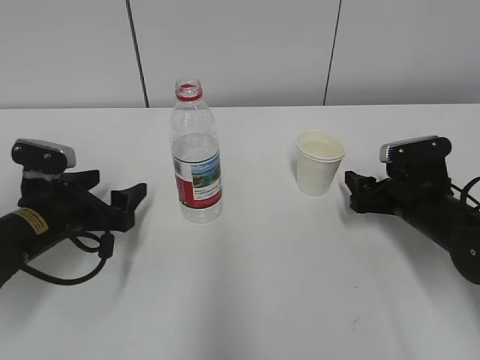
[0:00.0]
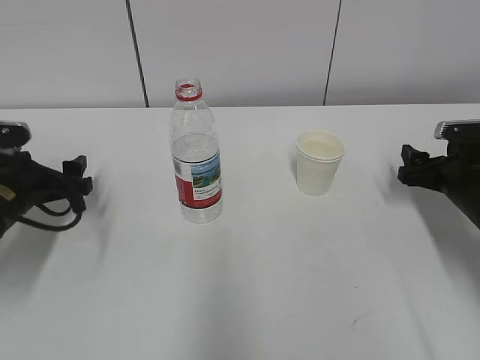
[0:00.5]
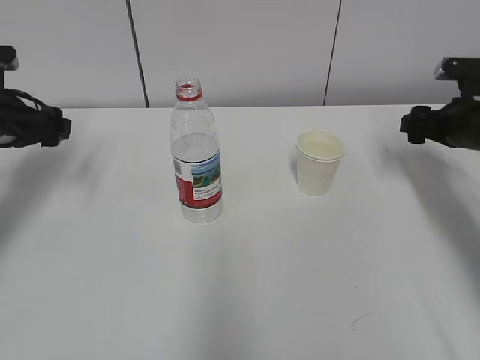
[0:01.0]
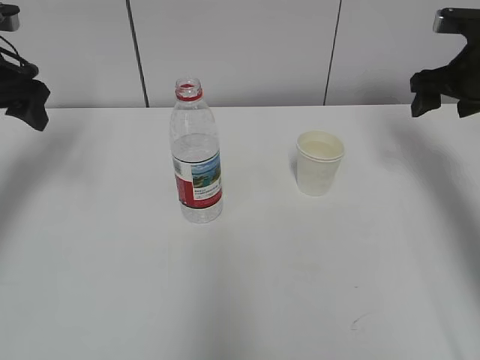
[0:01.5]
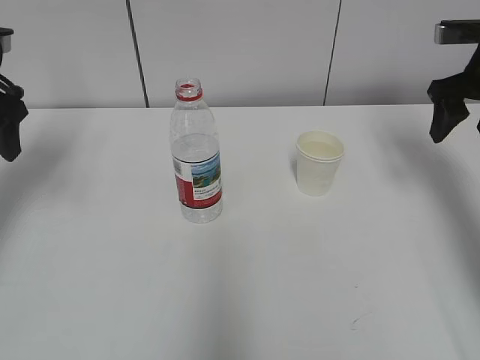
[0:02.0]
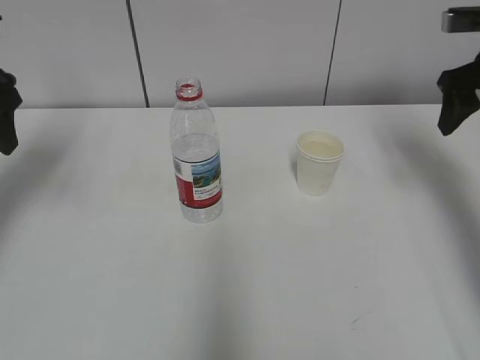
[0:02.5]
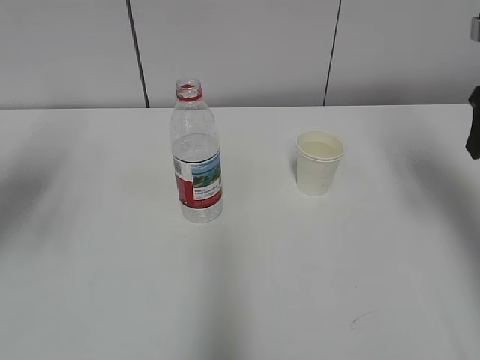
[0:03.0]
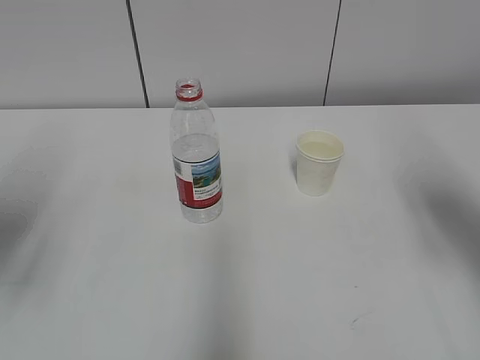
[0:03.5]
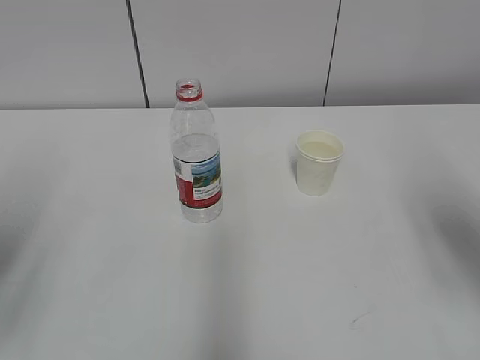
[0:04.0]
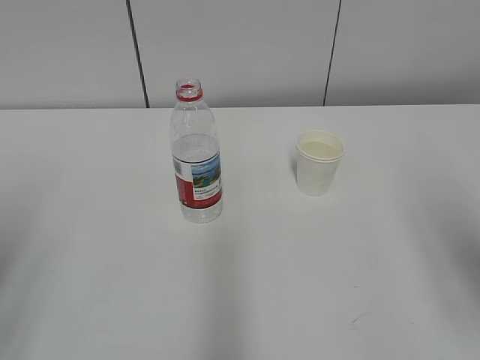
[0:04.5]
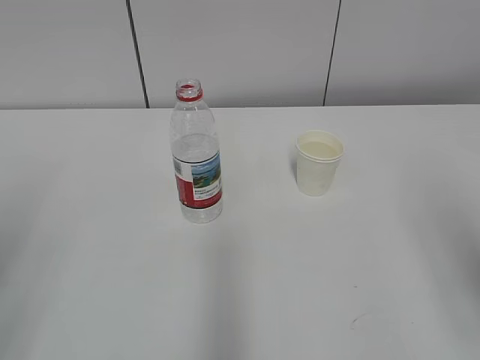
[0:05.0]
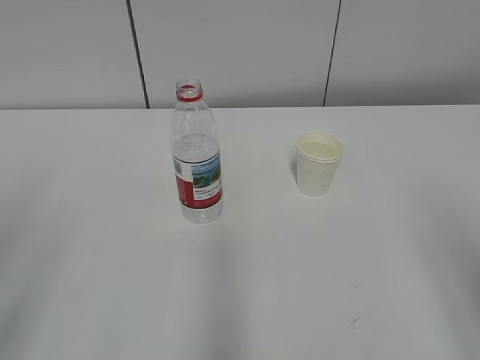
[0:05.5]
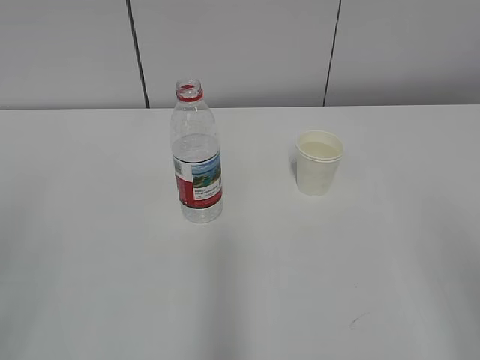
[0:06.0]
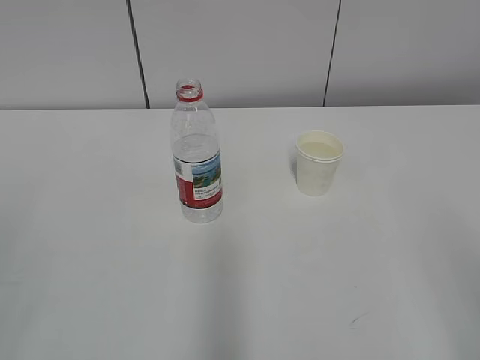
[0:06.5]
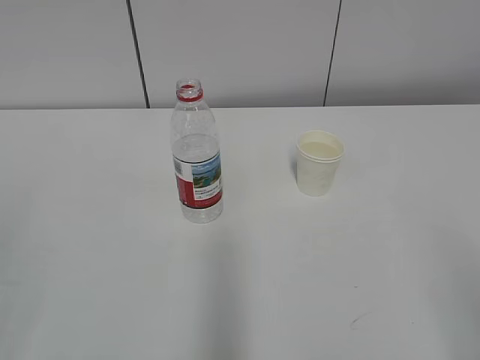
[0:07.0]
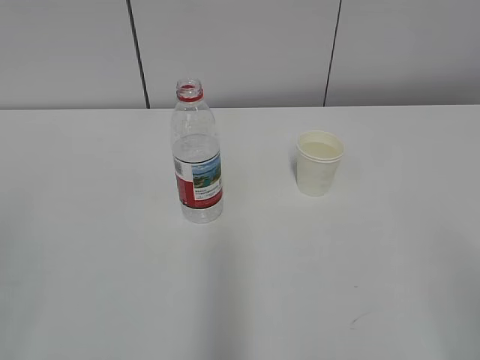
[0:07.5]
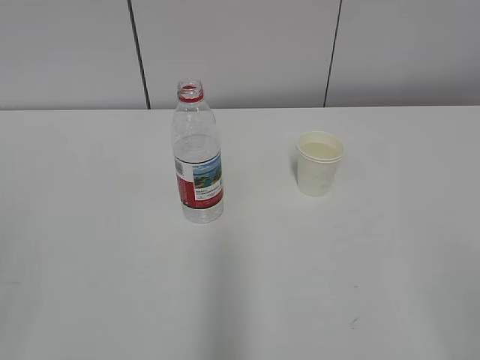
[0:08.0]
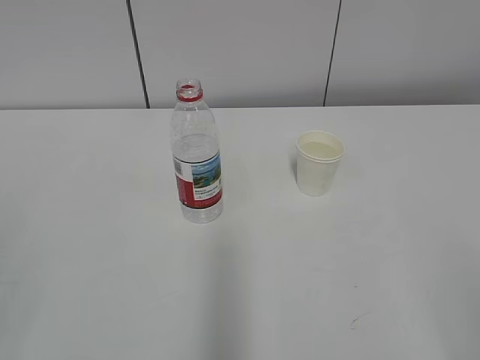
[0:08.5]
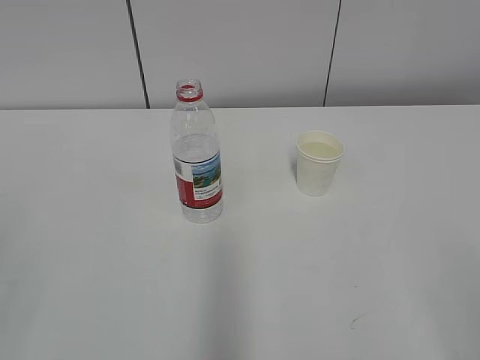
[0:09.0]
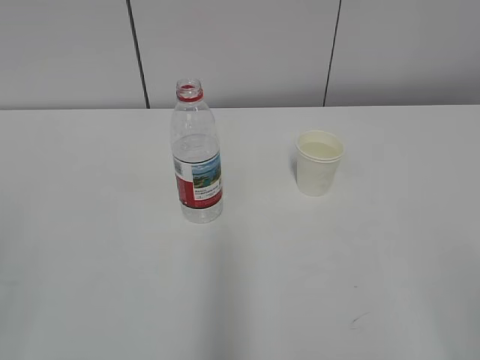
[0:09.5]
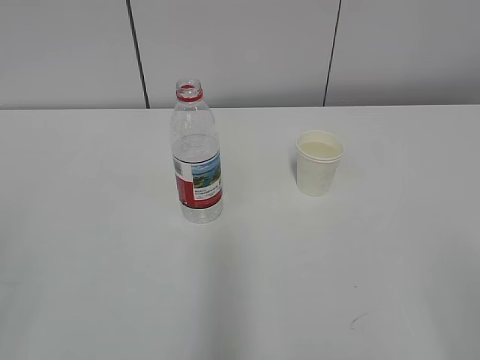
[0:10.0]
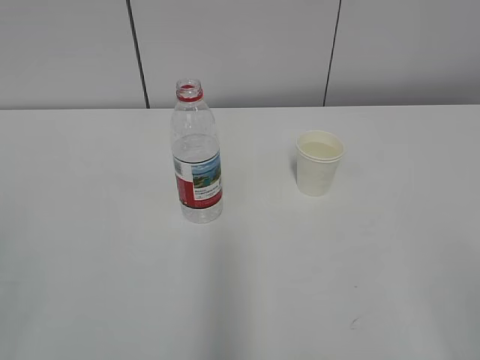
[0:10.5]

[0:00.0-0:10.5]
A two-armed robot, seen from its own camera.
0:00.0 to 0:02.0: The left gripper shifts some 20 cm upward and to the left. Meanwhile the right gripper moves upward, roughly 20 cm.
0:02.0 to 0:04.0: The two grippers go about 20 cm backward.
0:04.0 to 0:06.5: The right gripper moves backward, roughly 20 cm.
0:08.5 to 0:10.5: Both grippers stay put.
